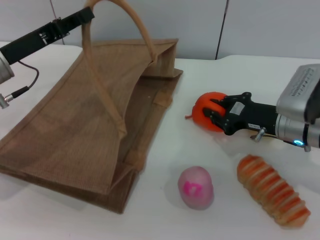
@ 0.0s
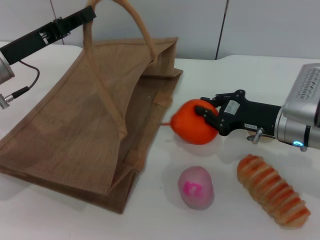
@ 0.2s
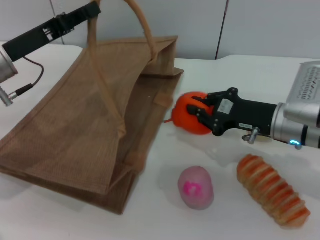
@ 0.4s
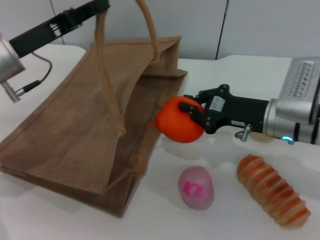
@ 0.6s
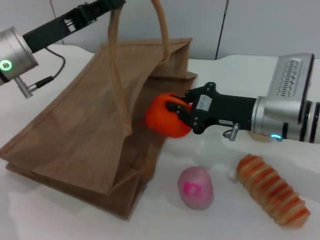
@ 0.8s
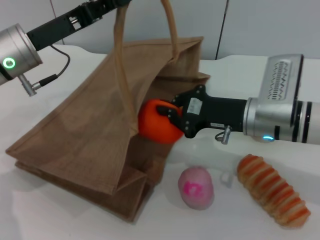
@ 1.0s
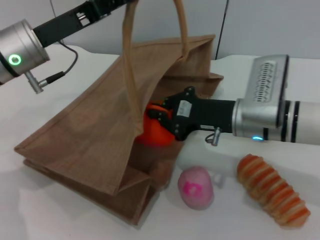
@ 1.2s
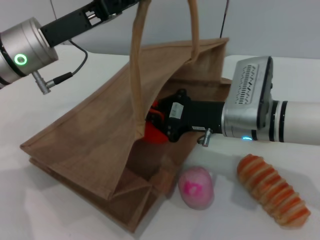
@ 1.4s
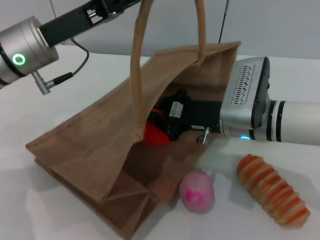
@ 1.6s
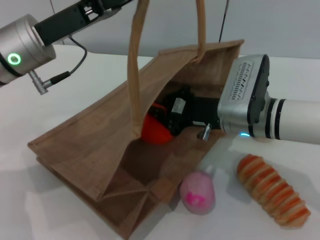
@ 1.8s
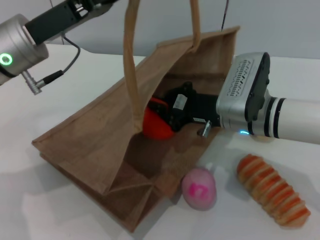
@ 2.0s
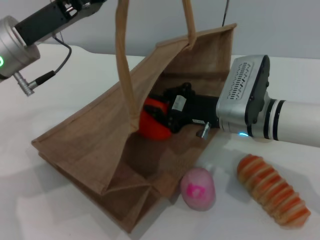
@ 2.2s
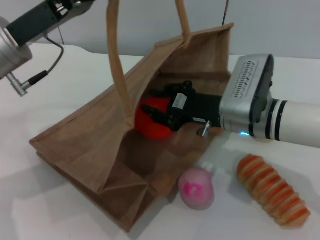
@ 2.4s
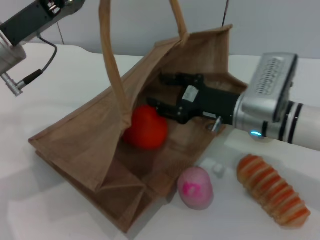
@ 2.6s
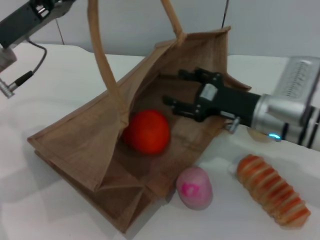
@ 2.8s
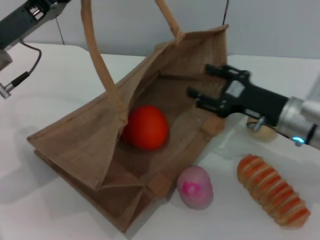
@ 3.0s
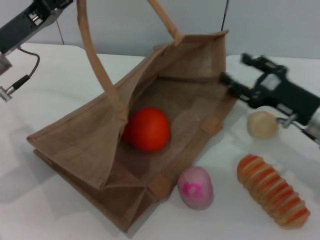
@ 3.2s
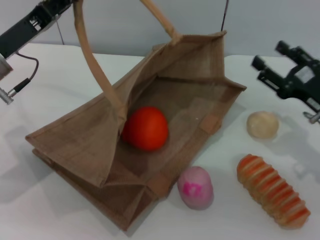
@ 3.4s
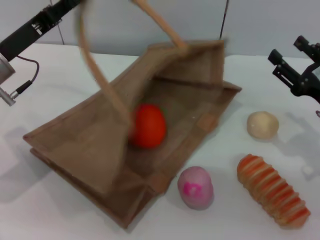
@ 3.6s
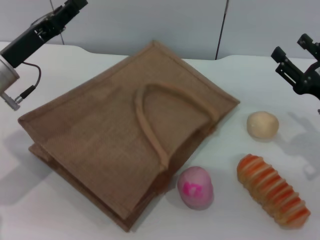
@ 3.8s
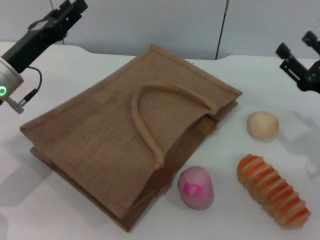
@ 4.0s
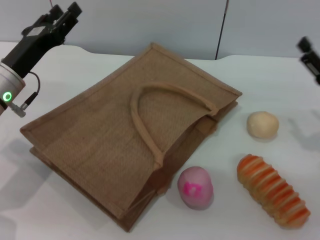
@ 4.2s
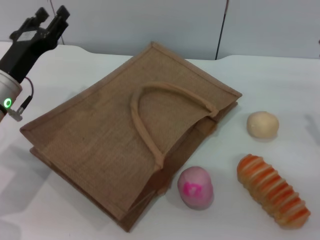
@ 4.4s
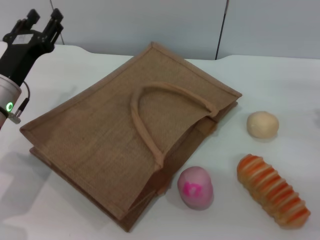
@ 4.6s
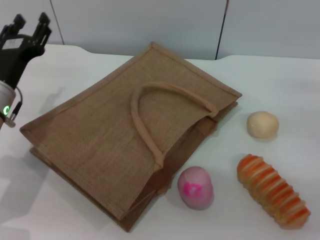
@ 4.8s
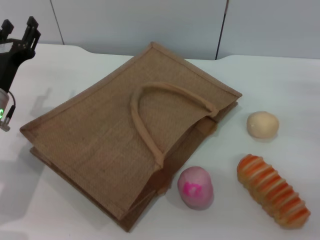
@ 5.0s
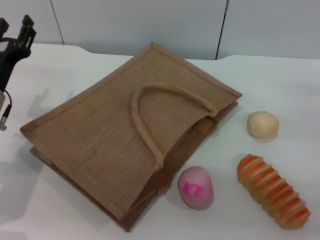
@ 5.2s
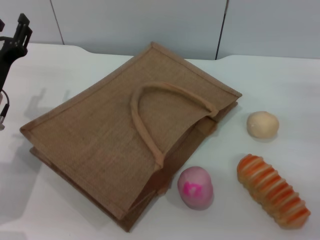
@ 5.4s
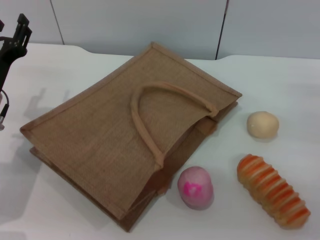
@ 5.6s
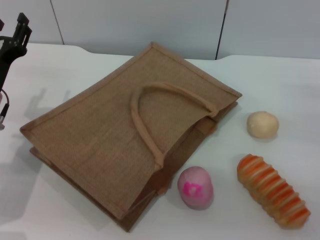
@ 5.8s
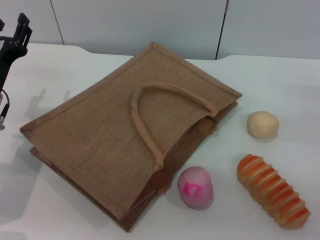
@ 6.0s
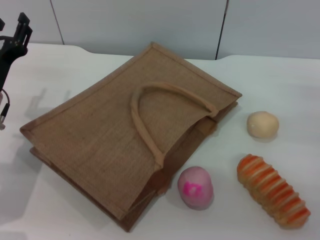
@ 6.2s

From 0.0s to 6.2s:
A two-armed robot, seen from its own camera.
Task of the whole recording: pick up the orange from the table and place it in the brown handbag.
Step, from 0.8s to 3.2s: Place the orange into the woven bag with the right gripper.
Step, from 3.4s to 4.0s: Lower the woven bag with the left gripper to close it.
From 0.0s to 1.6s: The left gripper travels to the right by approximately 5 cm, while the right gripper heads to the left, covering some 10 cm.
From 1.6s to 3.2s: The right gripper shifts about 15 cm to the right, and opens. Meanwhile the left gripper shifts some 5 cm to the left.
From 3.2s to 4.6s: The left gripper shifts some 5 cm downward, and opens up. Meanwhile the right gripper moves to the right, roughly 5 cm.
From 4.6s to 6.2s: The grippers make only small movements.

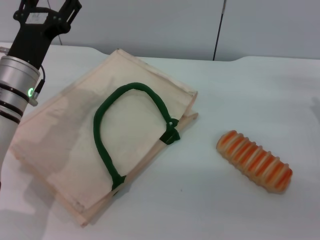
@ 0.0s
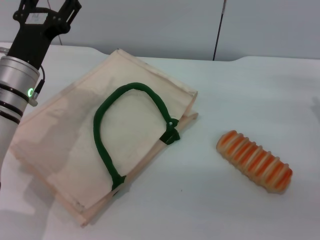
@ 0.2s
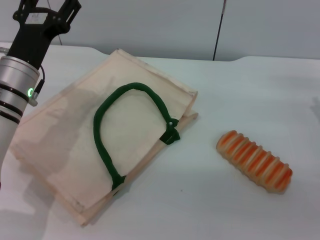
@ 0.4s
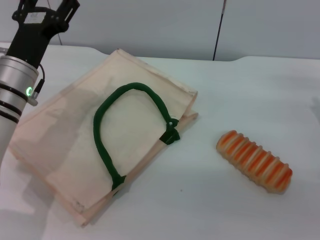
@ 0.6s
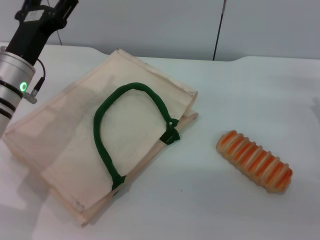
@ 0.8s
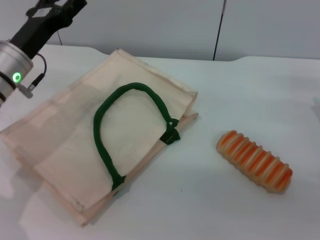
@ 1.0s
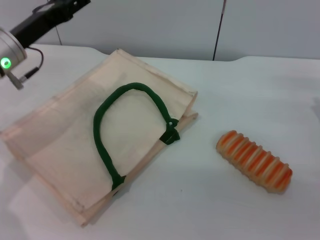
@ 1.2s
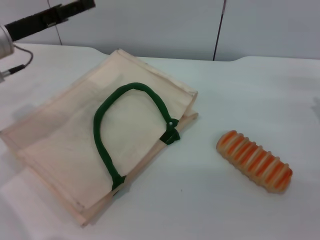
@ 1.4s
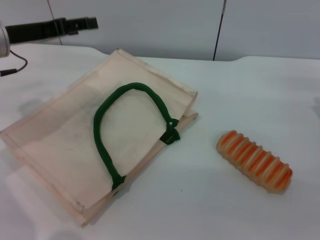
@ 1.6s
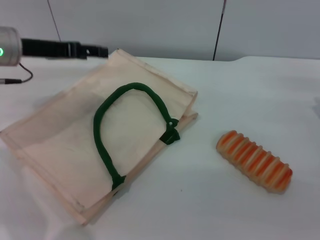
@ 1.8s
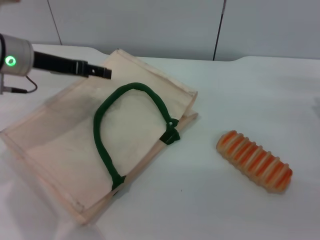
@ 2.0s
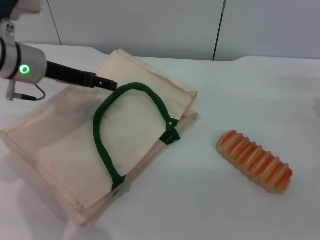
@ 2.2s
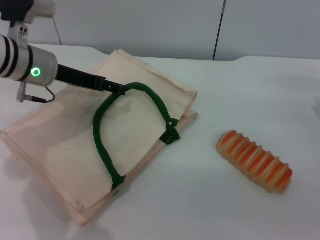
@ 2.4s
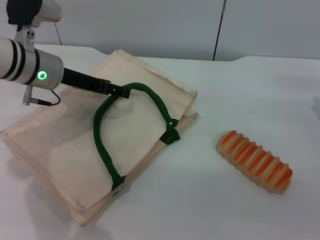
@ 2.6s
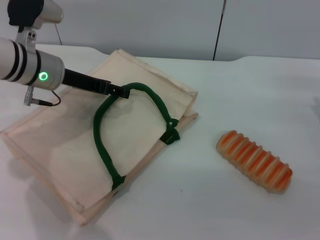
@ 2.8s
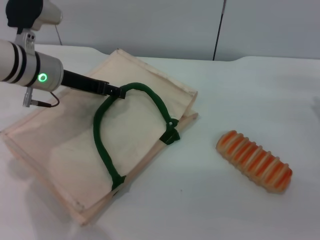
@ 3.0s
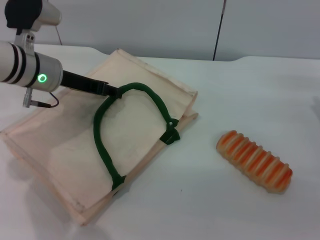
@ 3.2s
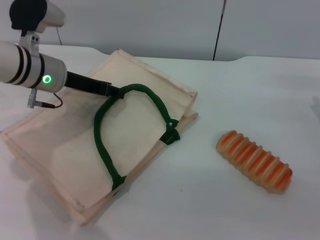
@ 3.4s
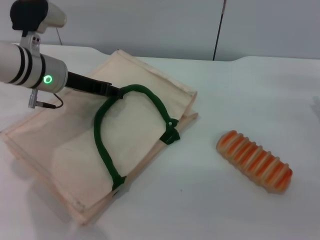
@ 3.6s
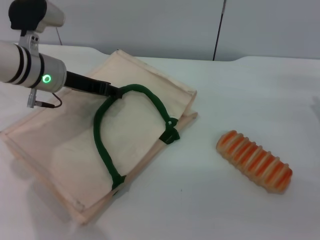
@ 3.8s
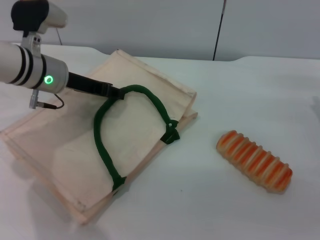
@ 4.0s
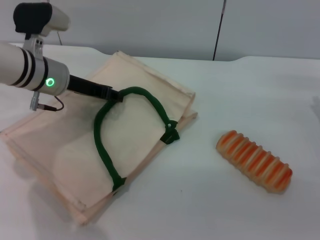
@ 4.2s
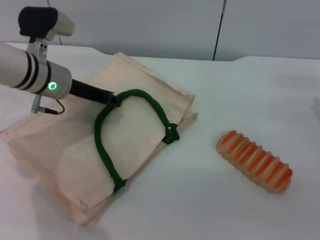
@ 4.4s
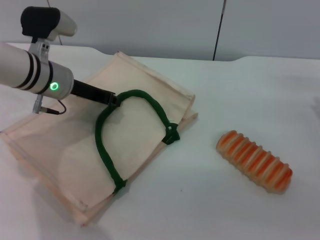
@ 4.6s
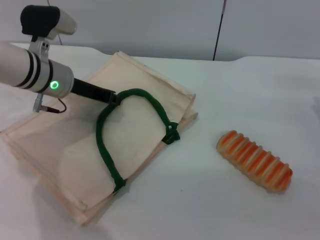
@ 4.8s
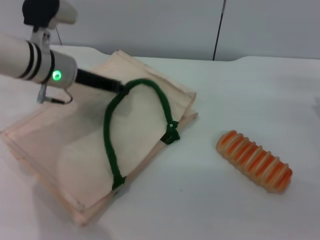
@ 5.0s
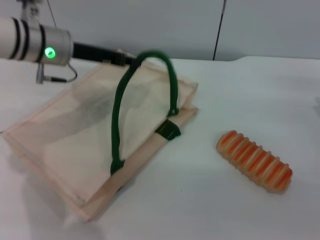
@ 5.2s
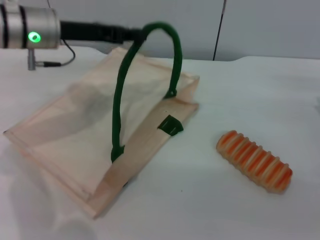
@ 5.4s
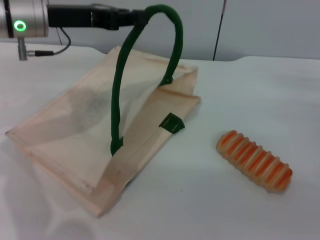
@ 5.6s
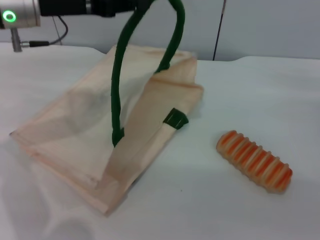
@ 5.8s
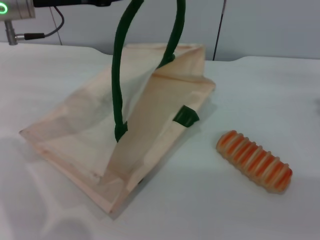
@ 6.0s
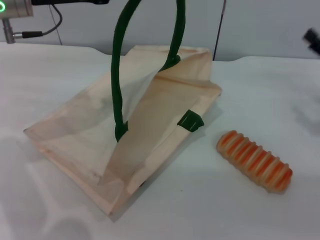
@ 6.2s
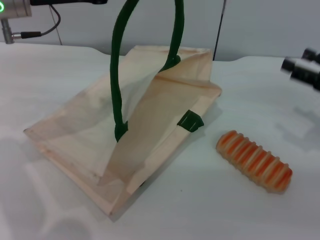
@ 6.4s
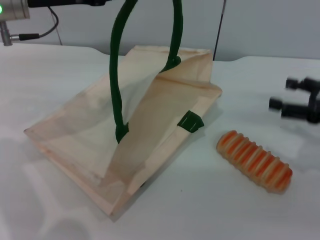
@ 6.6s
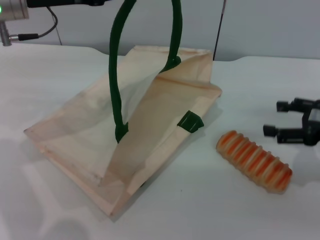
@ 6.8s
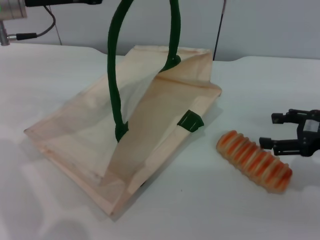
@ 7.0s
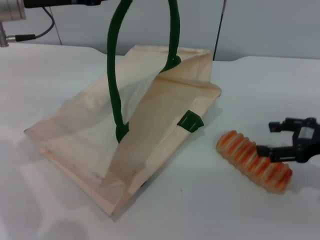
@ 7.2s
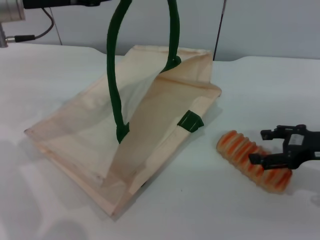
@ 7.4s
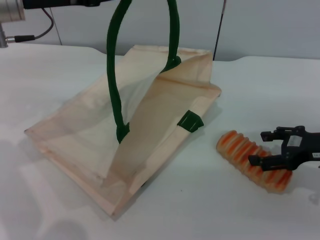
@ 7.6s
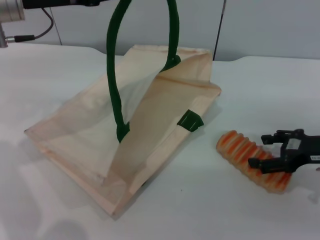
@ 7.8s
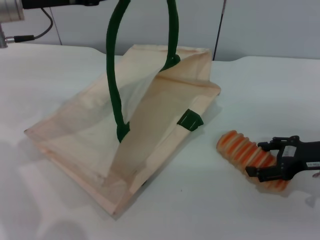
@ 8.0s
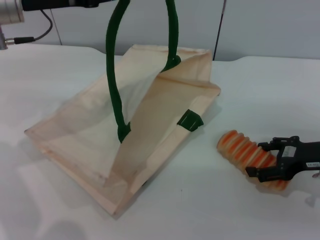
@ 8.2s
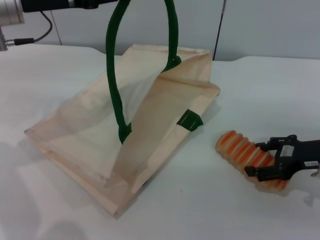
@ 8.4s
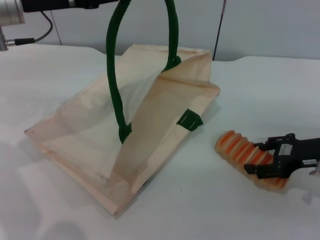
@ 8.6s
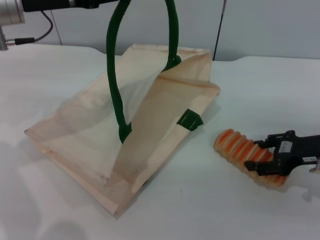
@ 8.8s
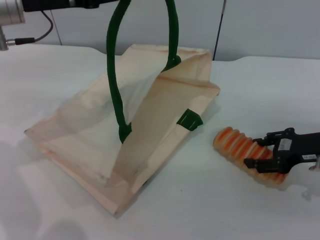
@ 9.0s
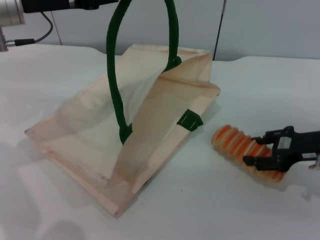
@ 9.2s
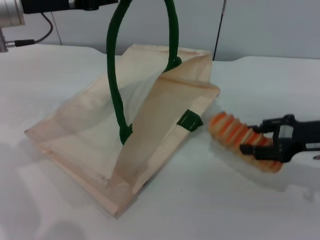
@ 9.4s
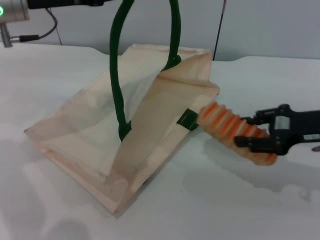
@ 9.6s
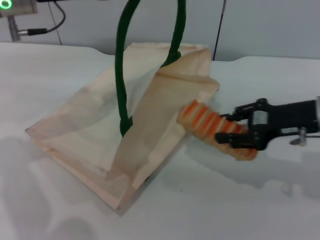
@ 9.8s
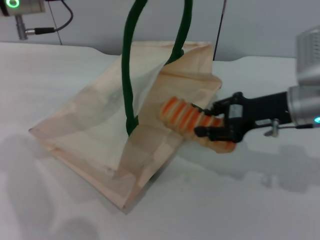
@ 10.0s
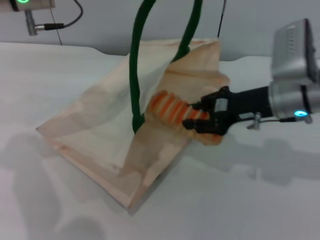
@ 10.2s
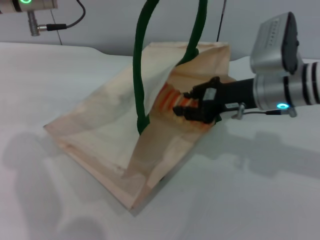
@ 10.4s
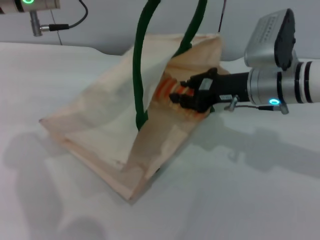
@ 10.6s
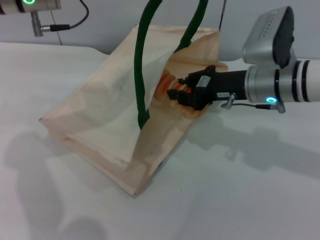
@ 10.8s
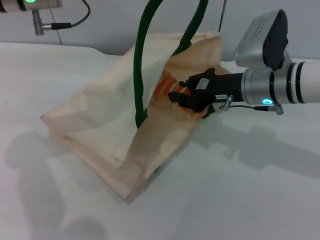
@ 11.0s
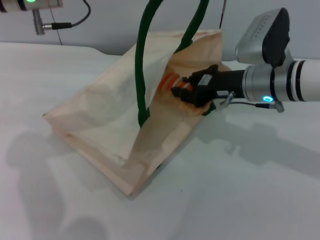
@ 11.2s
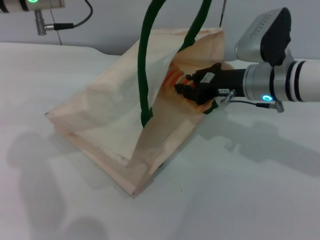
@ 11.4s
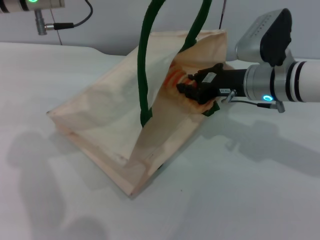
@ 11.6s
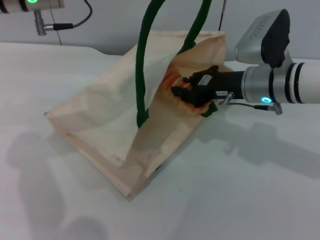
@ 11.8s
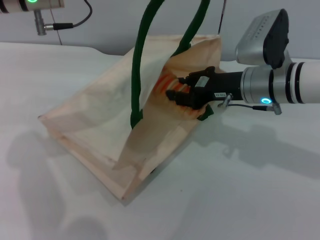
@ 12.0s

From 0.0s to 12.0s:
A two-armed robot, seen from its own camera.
Task of the whole recording: pick up the bread from the table and place it in the white handbag.
Step, from 0.0s to 6.0s: Lift the woven bag with the left gripper to open it.
Step, from 6.2s to 9.4s: Pick up the bread with the right gripper.
From 0.0s to 1.6s: The left gripper shifts about 10 cm upward and to the left.
From 1.6s to 3.0s: The left gripper is displaced to the right by some 5 cm.
From 3.0s to 4.4s: The left gripper closes.
From 4.4s to 6.0s: The left gripper heads upward, covering about 10 cm, and closes.
From 7.6s to 9.0s: There are only small adjustments of the grippers.
From 9.0s to 10.4s: The right gripper heads to the left and forward, covering approximately 15 cm, and closes.
From 10.4s to 12.0s: The grippers stay close to where they were, moving slightly.

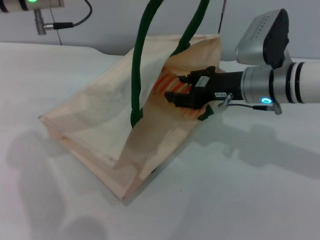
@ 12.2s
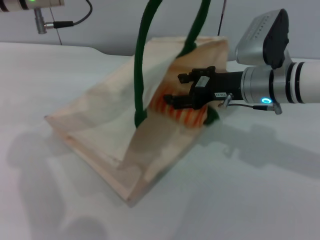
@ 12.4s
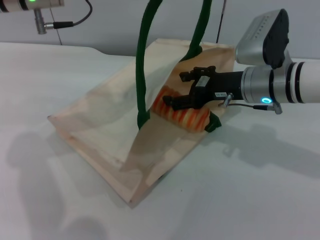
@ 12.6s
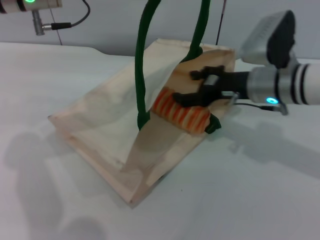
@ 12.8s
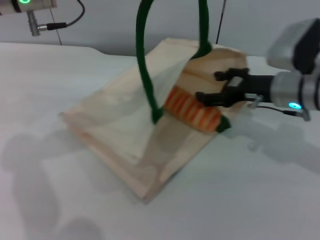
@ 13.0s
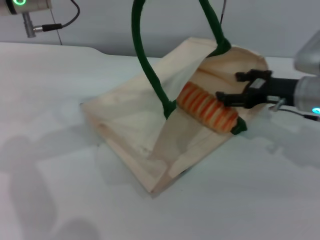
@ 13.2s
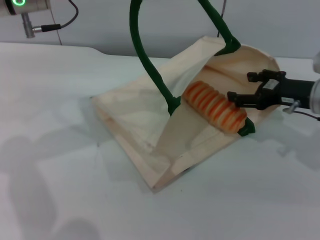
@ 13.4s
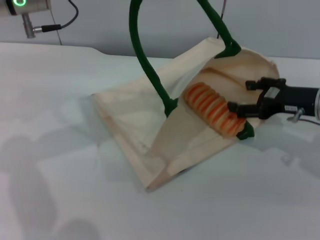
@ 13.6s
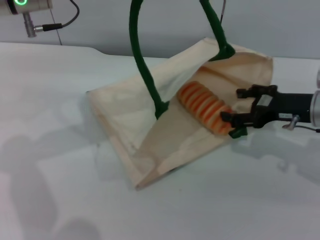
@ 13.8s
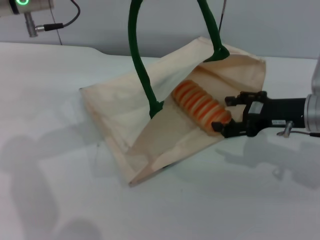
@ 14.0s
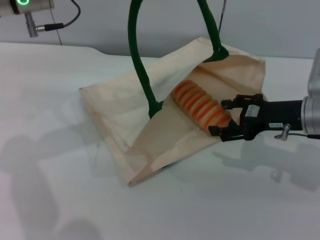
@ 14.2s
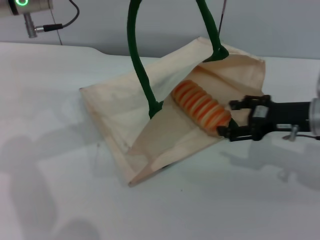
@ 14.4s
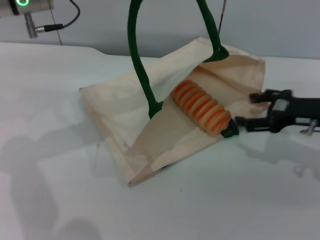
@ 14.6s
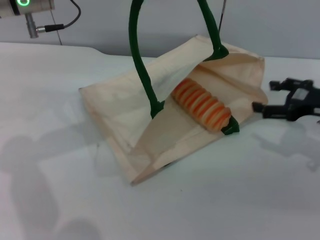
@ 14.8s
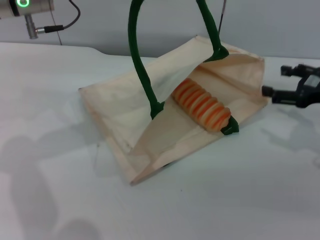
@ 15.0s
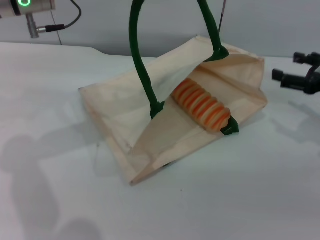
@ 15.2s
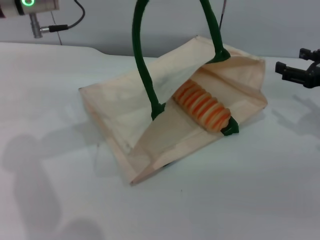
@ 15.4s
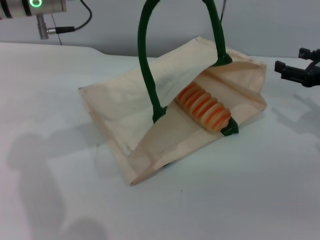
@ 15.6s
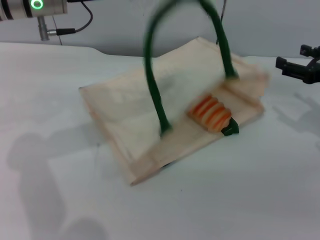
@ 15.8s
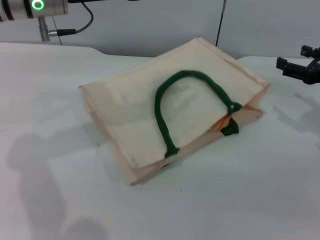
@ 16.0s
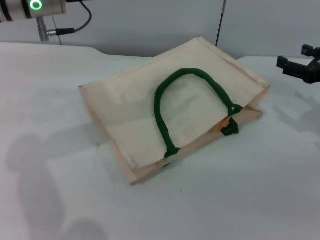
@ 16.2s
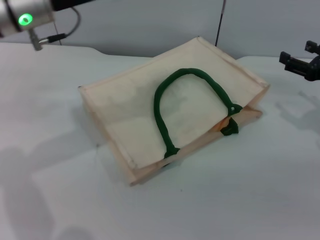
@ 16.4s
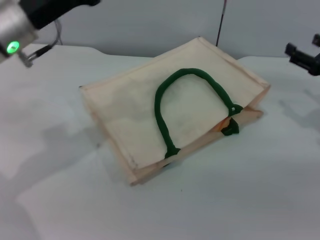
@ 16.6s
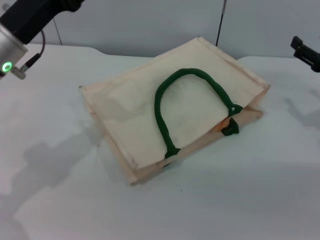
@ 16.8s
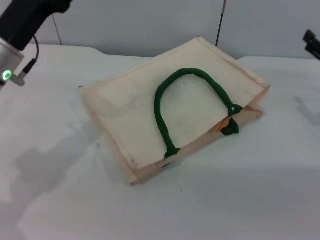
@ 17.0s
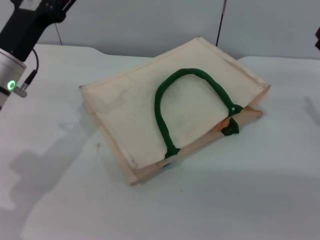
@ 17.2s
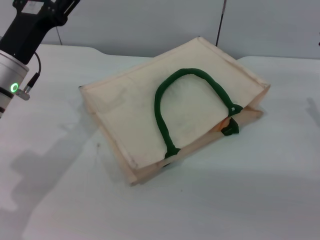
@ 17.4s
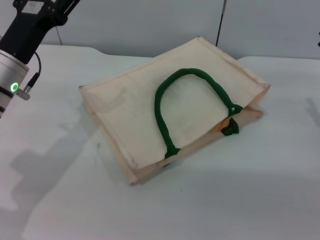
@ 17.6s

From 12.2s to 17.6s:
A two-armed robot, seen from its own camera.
Task of the whole recording: pick up the bread from the table and place it in the white handbag.
Step, from 12.2s to 14.6s: Place the bread into the woven bag with the right gripper.
Step, from 14.8s to 16.4s: Lower the woven bag with the left gripper to close it.
From 12.2s to 13.6s: The right gripper is displaced to the right by roughly 10 cm, and opens.
From 13.6s to 15.0s: The right gripper goes approximately 5 cm to the right.
From 15.0s to 16.2s: The grippers move only a little.
From 16.2s to 17.6s: The left gripper moves downward and backward, roughly 15 cm, and opens its fingers.
